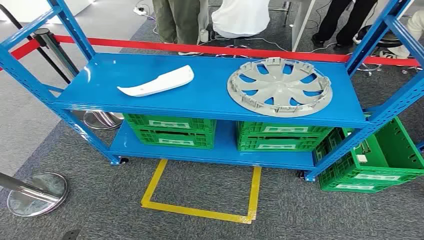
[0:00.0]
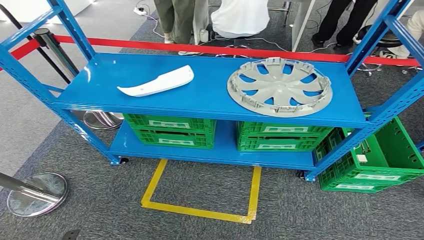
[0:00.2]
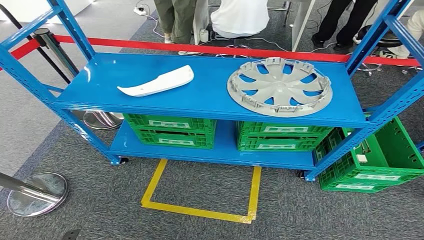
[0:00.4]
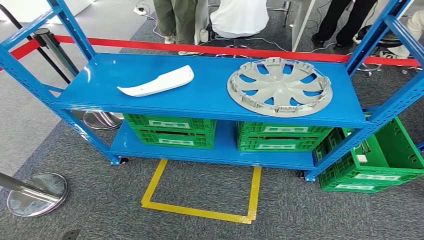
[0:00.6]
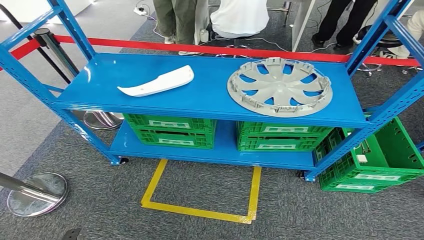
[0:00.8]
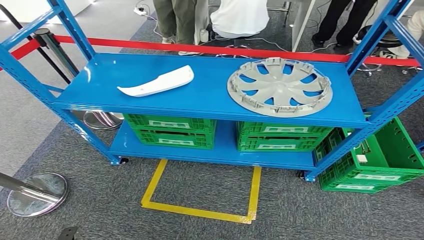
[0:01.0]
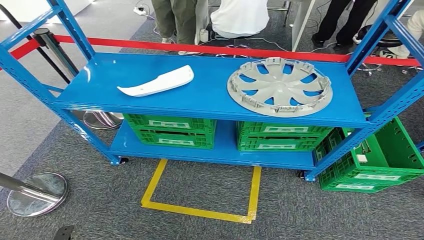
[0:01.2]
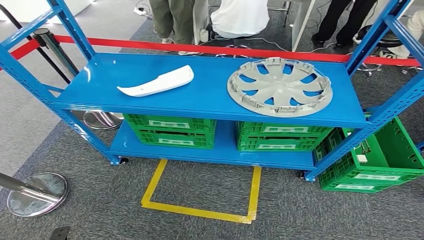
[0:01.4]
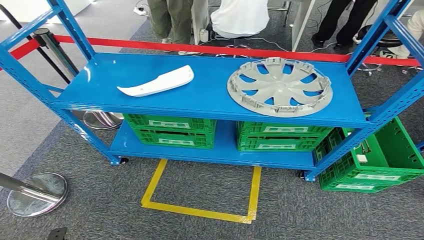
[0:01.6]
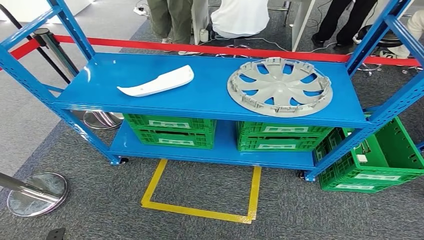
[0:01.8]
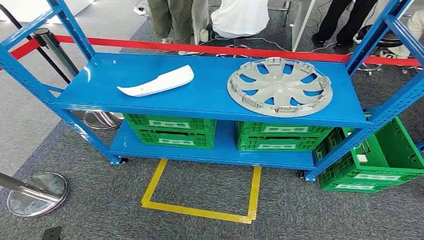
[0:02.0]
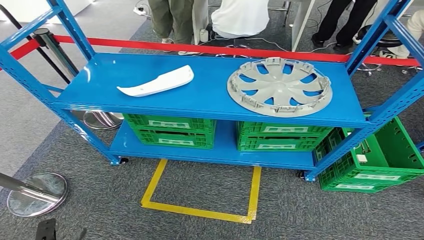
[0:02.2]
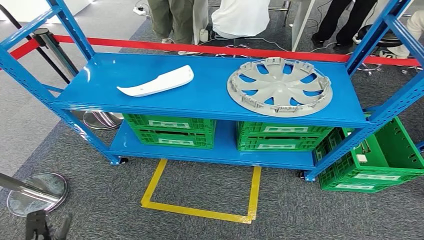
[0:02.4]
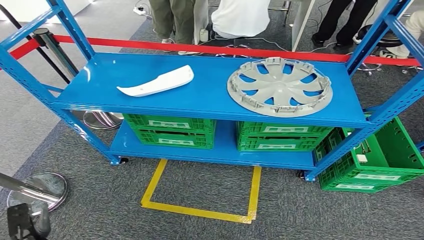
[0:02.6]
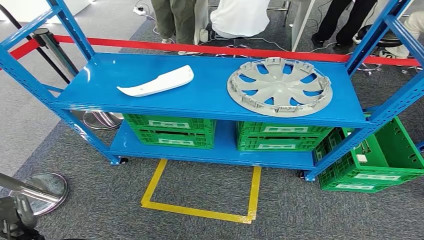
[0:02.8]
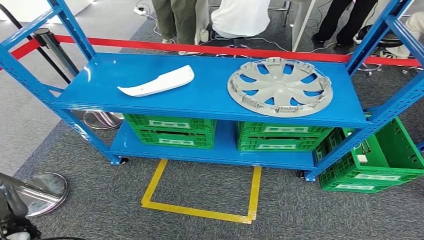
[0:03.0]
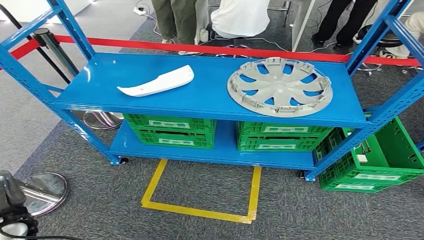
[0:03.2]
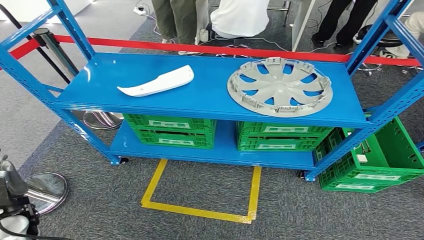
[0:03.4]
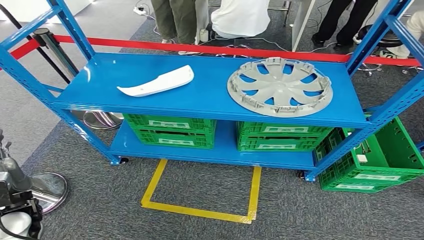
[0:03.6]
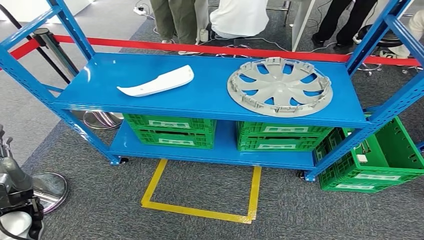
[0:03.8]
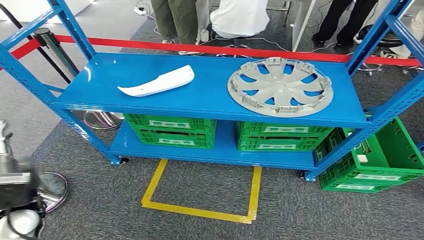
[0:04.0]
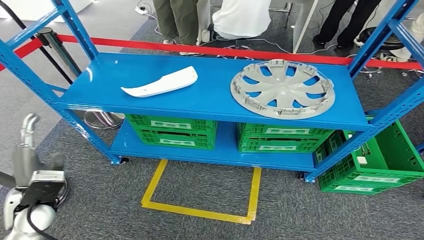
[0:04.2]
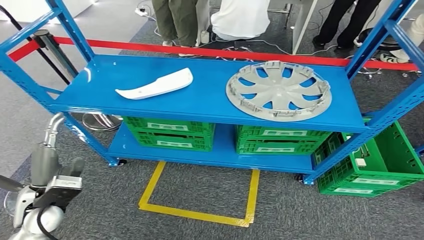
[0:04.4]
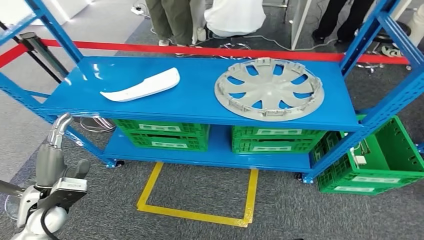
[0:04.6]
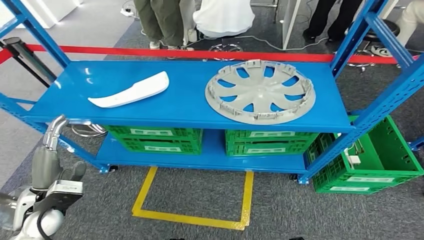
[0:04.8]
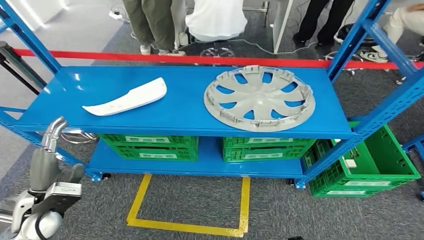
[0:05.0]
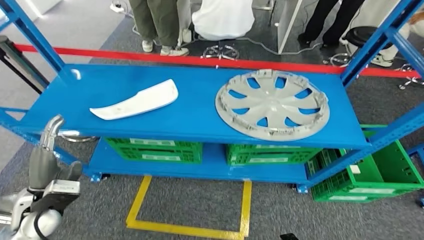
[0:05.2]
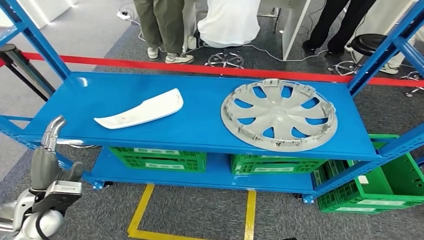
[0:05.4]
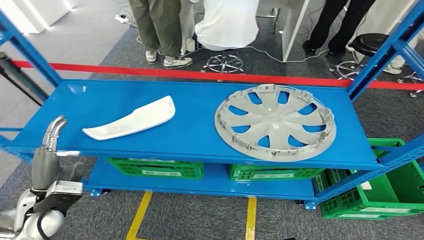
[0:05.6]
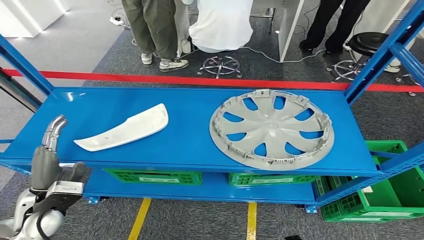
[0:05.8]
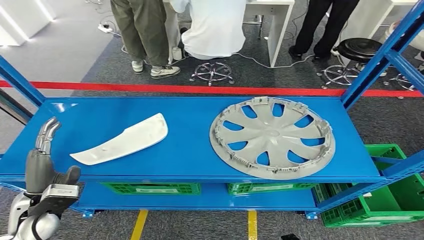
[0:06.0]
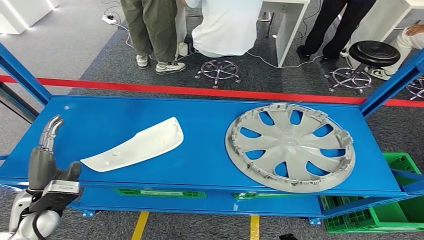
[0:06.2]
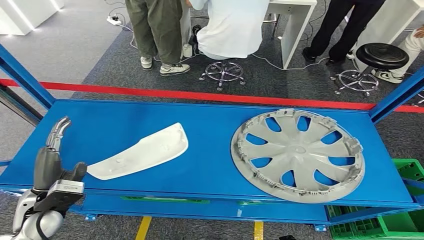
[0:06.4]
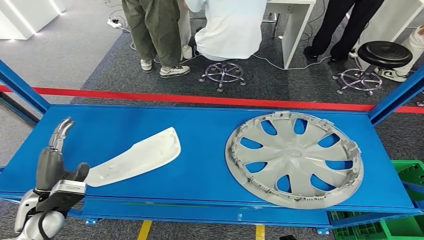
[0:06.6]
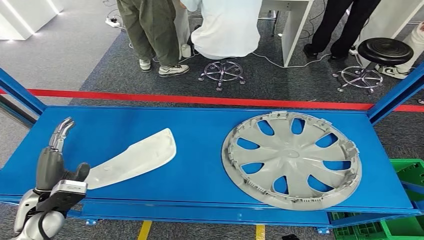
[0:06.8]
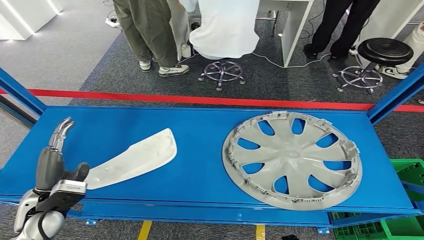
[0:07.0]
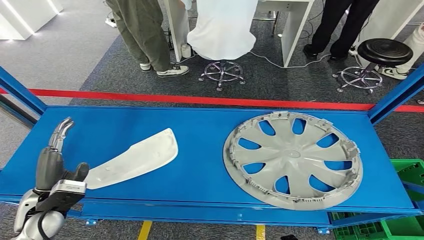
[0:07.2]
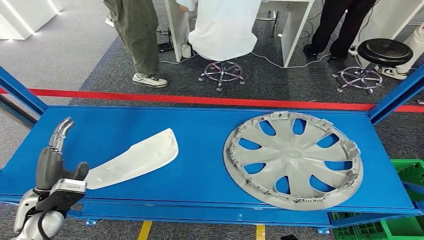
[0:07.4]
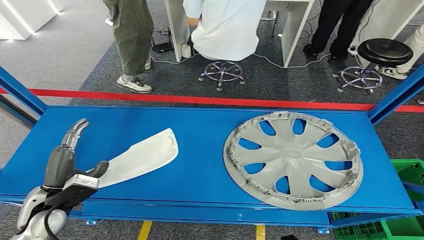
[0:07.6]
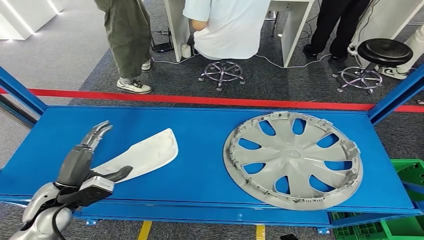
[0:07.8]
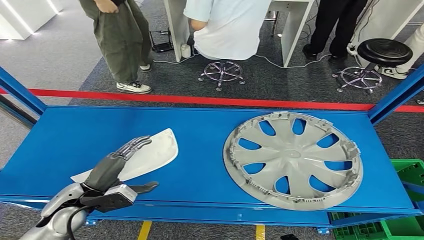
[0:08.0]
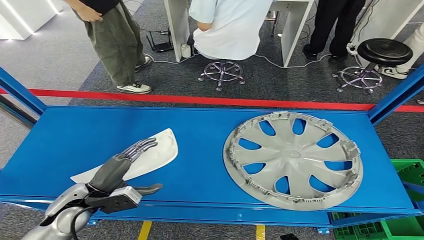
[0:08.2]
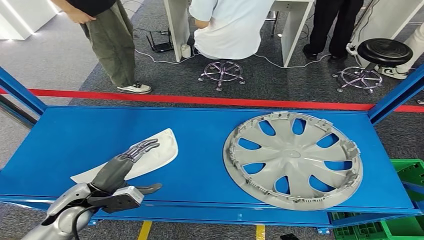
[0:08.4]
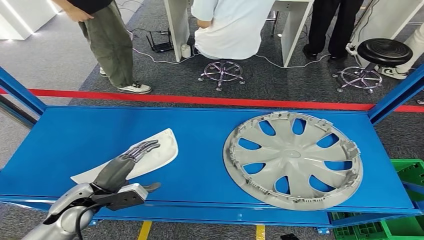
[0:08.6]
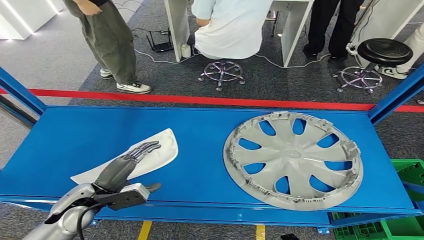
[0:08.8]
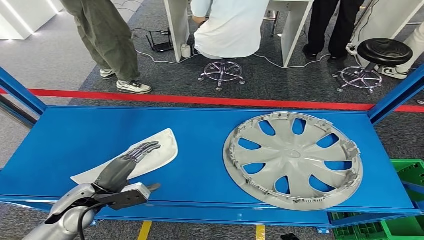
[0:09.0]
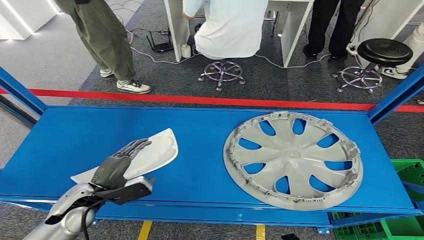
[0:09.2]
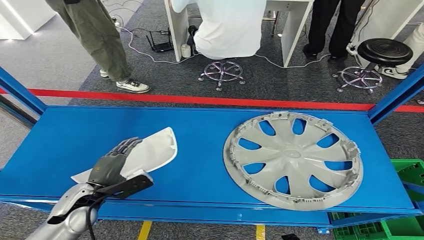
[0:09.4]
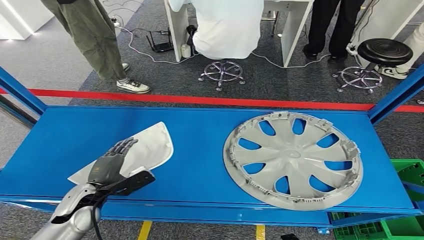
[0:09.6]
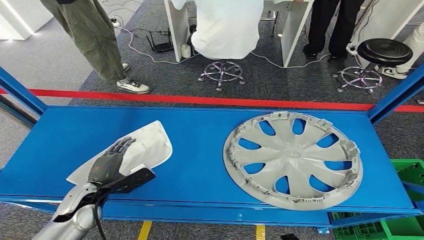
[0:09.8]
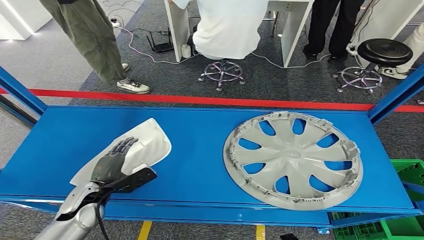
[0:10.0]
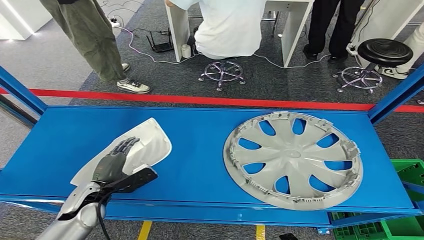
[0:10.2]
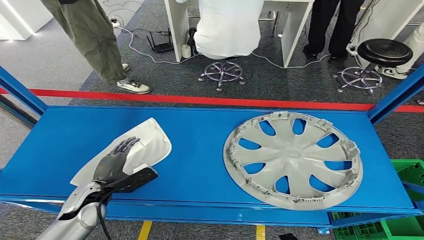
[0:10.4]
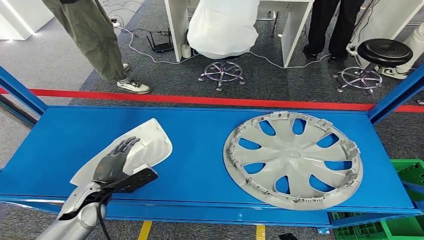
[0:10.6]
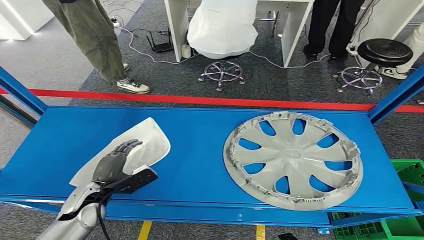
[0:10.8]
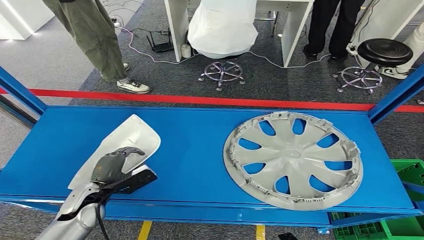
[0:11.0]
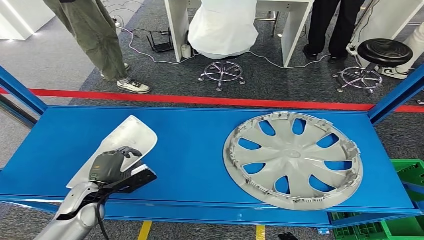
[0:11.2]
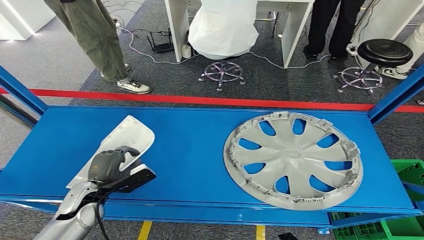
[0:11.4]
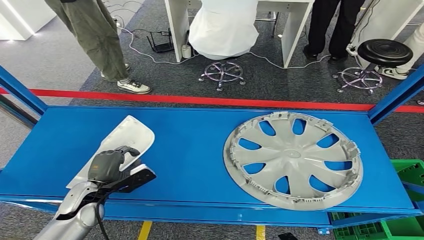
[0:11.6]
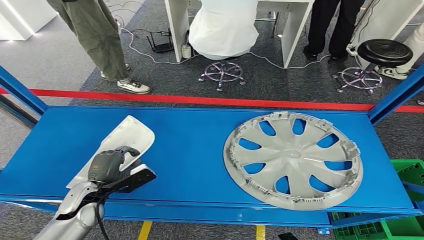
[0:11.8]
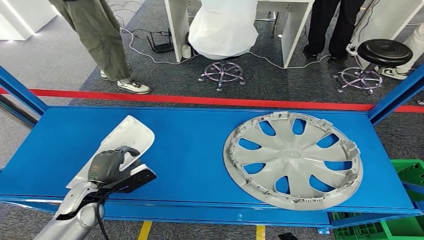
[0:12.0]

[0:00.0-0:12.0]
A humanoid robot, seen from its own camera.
0:01.6 to 0:03.0: The left hand goes approximately 15 cm forward and upward.
0:10.4 to 0:12.0: The hands move only a little.

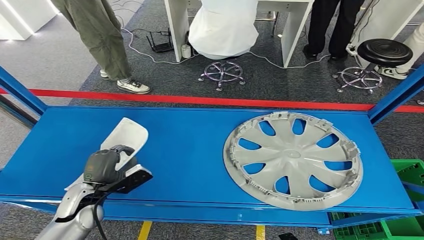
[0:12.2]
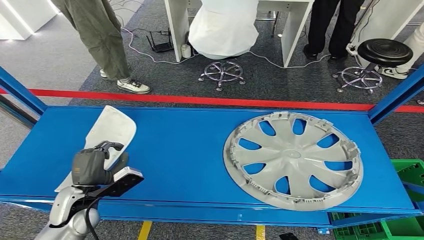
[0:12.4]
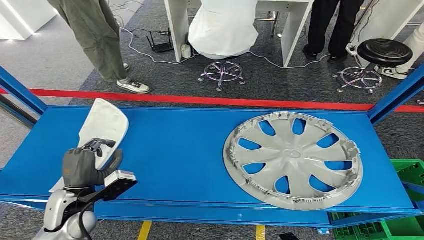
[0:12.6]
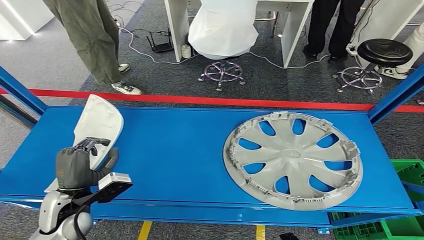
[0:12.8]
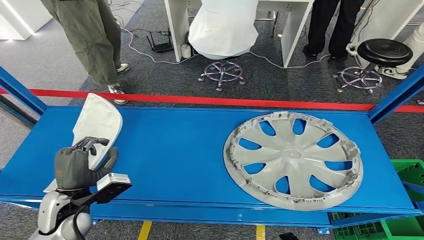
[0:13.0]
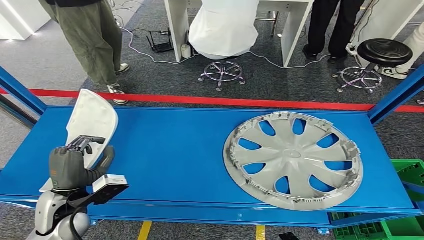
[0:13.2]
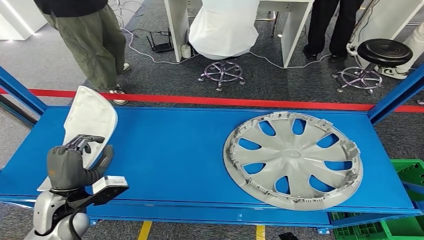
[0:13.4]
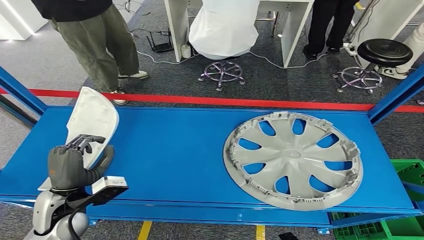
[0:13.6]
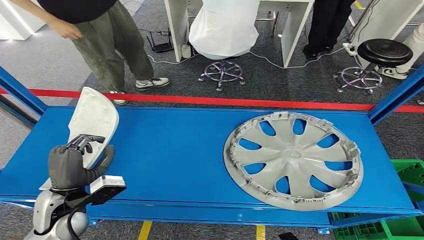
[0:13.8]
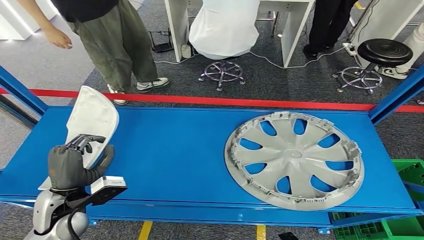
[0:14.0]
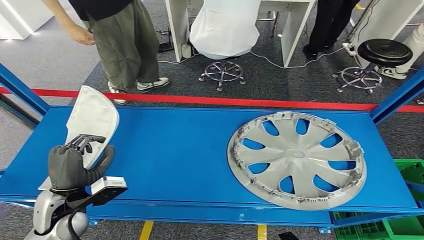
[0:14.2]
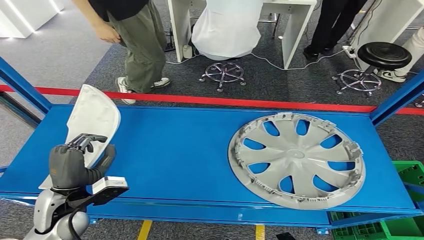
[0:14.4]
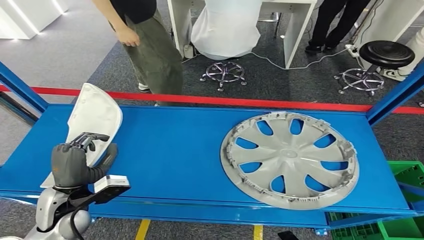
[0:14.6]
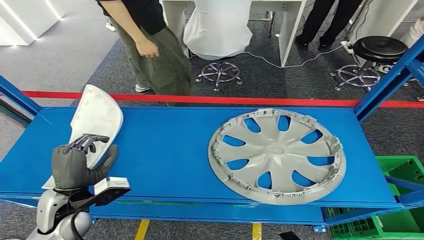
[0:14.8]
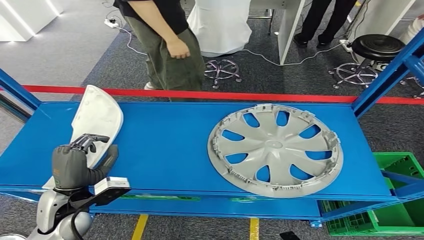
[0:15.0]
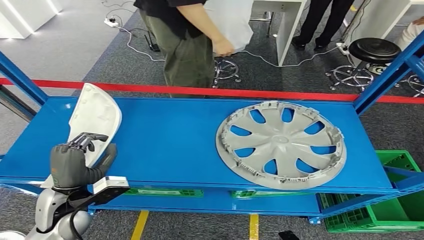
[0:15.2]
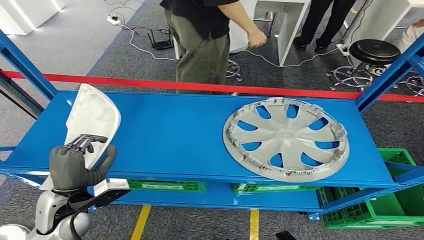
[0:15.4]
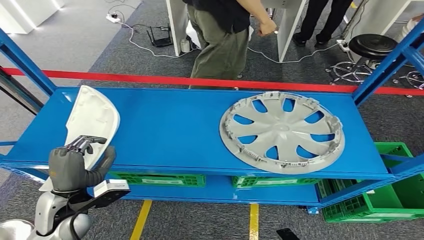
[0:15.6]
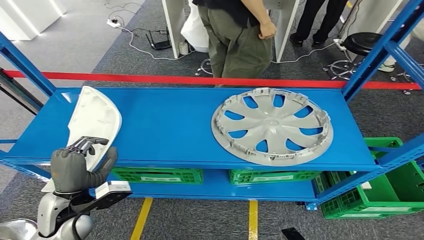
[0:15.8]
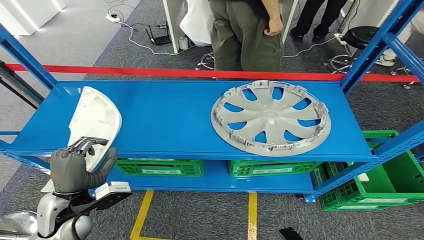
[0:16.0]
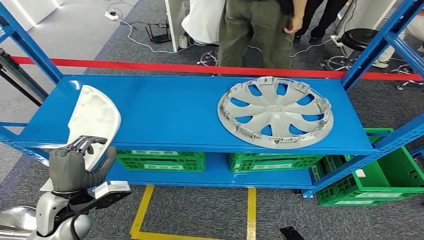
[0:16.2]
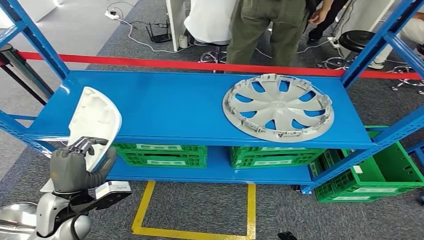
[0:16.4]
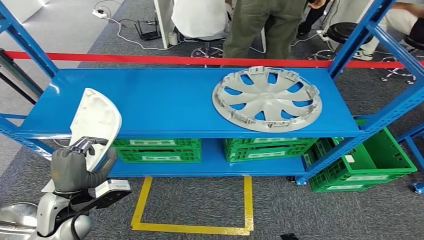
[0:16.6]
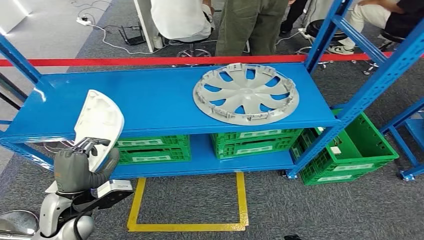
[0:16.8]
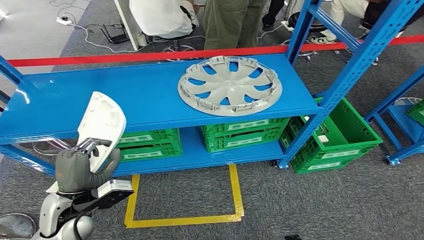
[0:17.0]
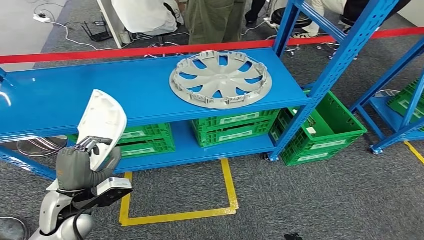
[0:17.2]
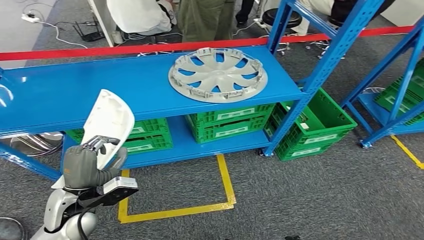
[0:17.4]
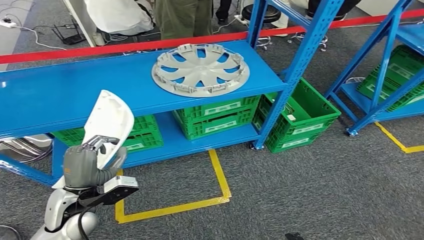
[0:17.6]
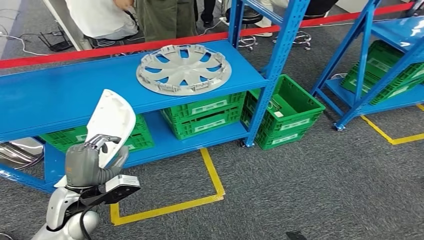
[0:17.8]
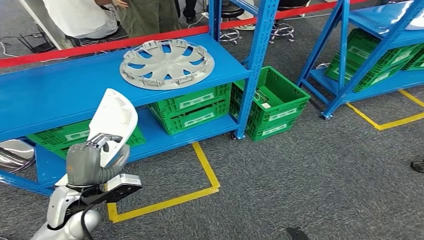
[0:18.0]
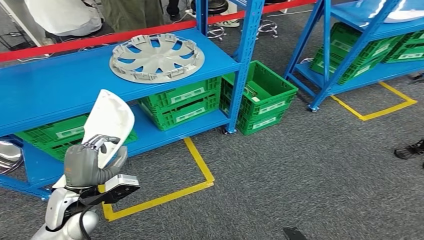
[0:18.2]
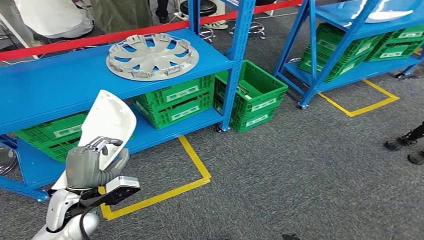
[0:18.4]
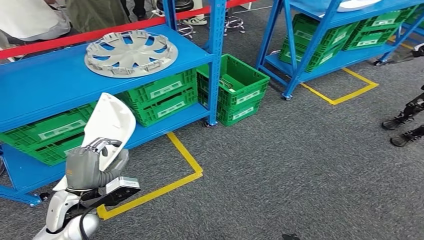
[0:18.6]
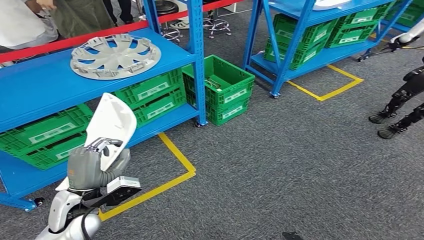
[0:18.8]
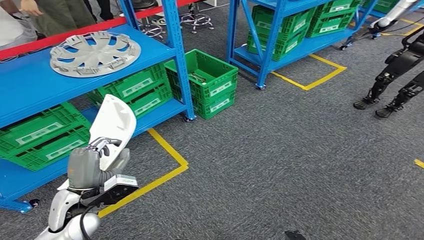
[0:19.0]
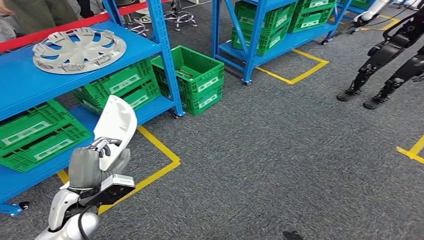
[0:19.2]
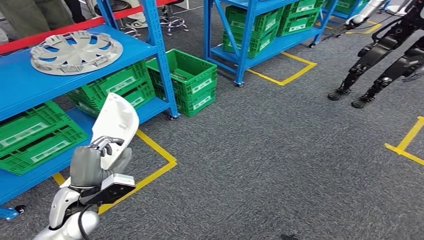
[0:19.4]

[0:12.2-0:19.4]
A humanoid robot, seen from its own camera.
0:12.2 to 0:13.6: The left hand travels upward by about 5 cm.
